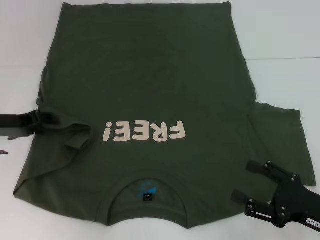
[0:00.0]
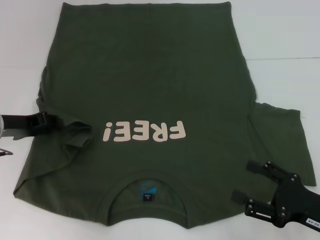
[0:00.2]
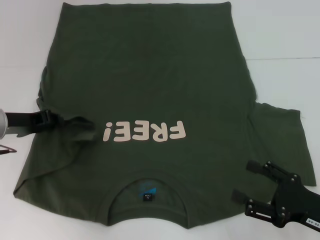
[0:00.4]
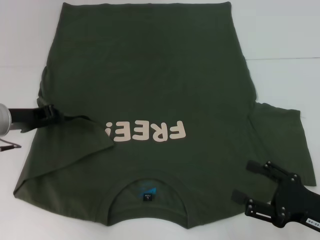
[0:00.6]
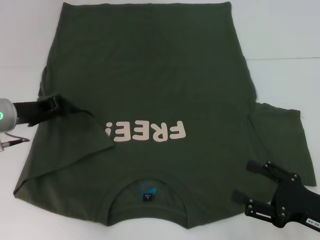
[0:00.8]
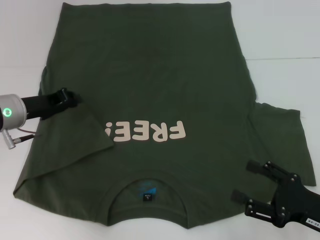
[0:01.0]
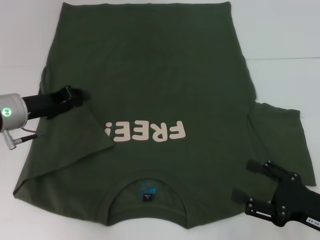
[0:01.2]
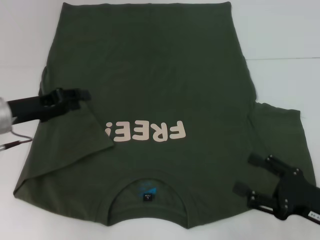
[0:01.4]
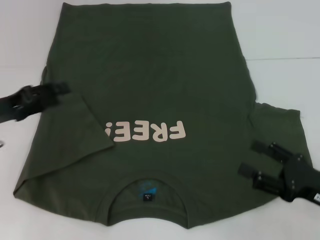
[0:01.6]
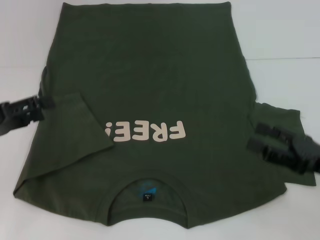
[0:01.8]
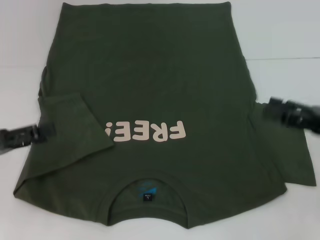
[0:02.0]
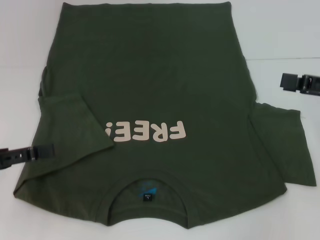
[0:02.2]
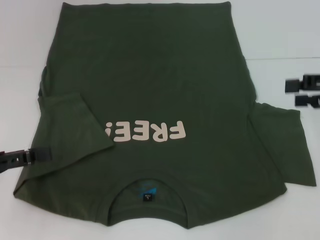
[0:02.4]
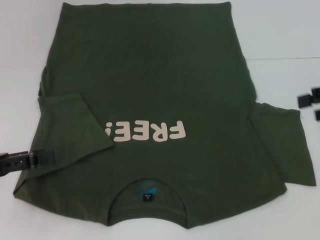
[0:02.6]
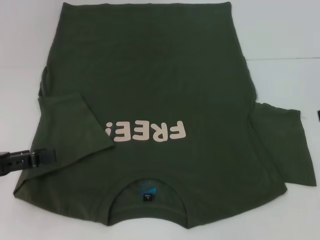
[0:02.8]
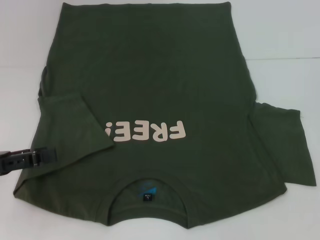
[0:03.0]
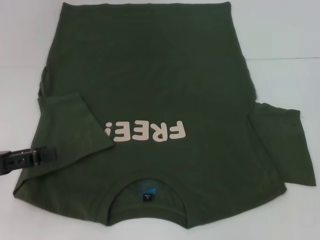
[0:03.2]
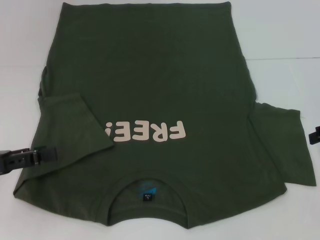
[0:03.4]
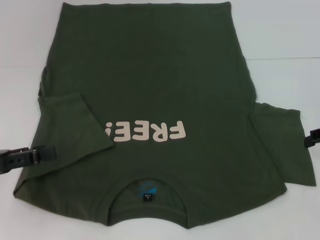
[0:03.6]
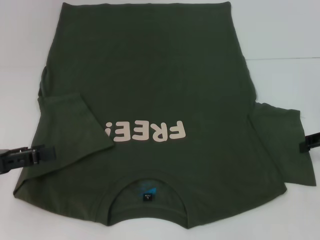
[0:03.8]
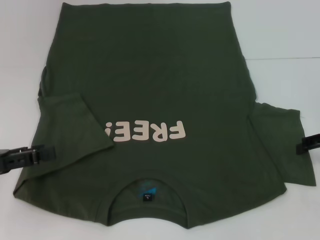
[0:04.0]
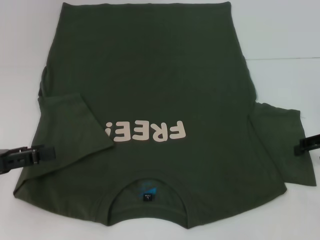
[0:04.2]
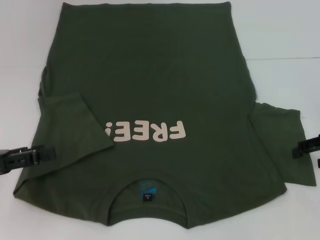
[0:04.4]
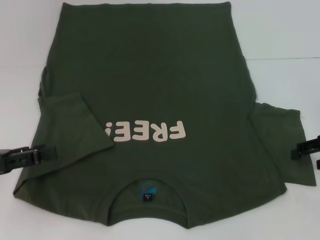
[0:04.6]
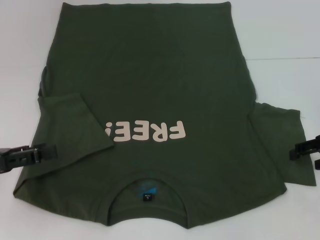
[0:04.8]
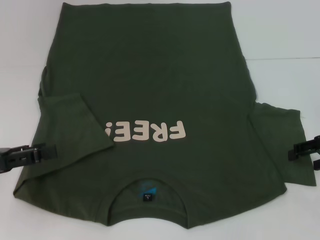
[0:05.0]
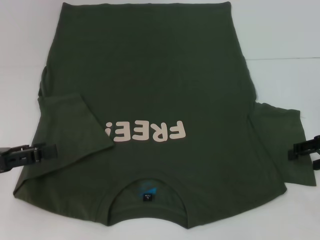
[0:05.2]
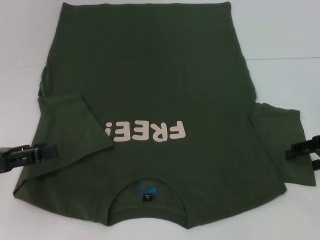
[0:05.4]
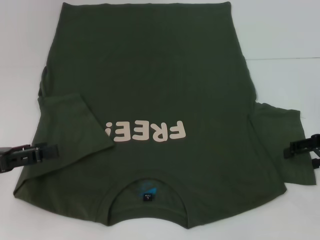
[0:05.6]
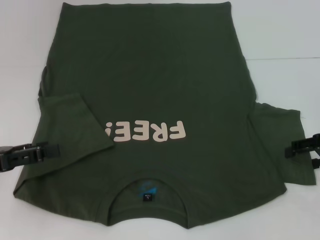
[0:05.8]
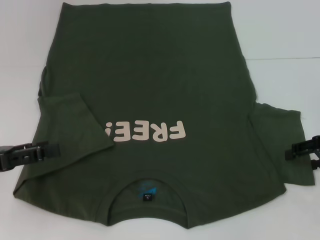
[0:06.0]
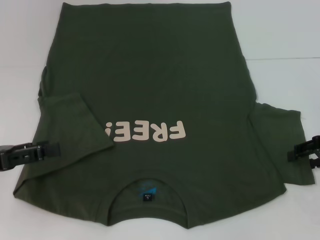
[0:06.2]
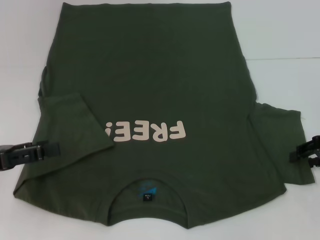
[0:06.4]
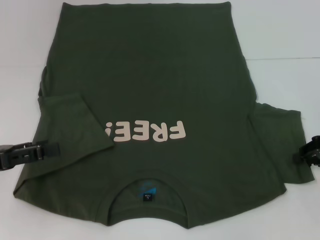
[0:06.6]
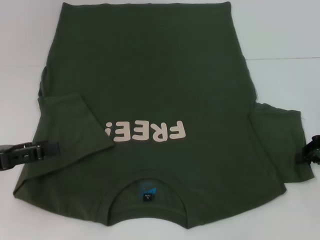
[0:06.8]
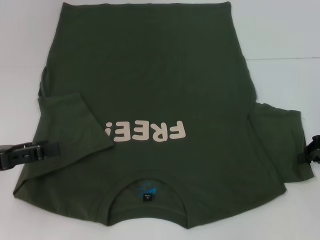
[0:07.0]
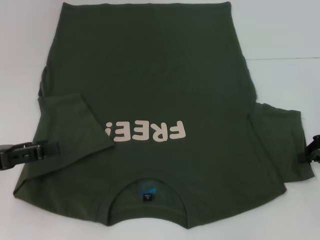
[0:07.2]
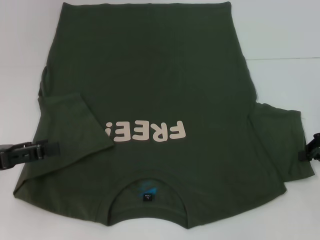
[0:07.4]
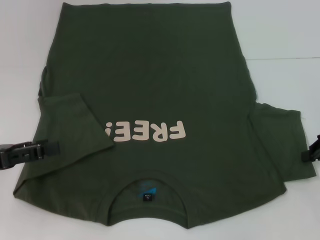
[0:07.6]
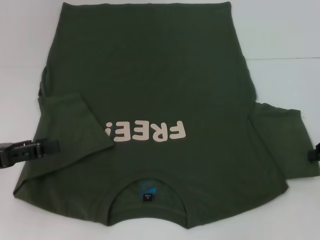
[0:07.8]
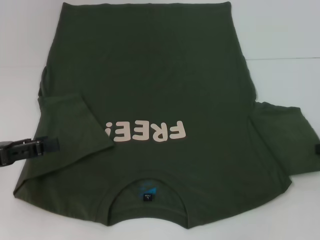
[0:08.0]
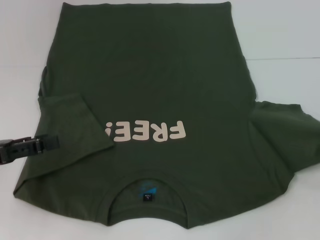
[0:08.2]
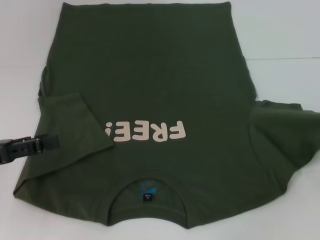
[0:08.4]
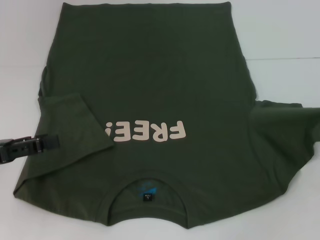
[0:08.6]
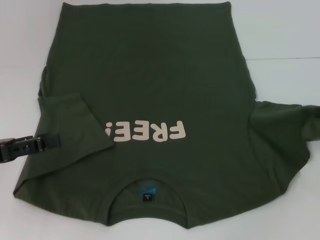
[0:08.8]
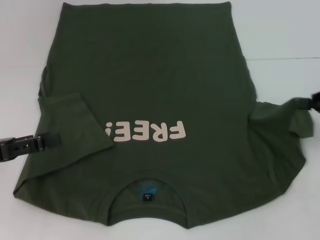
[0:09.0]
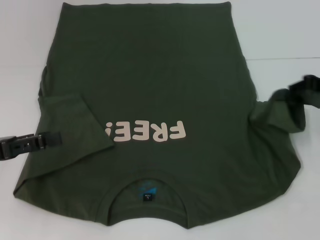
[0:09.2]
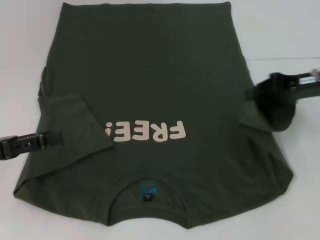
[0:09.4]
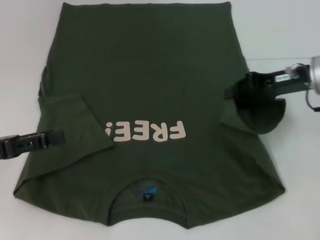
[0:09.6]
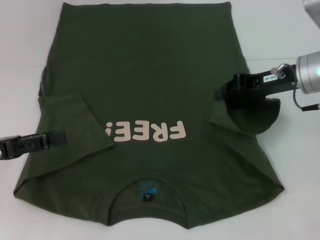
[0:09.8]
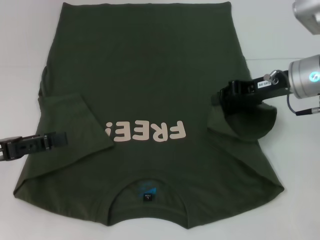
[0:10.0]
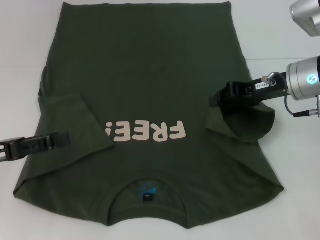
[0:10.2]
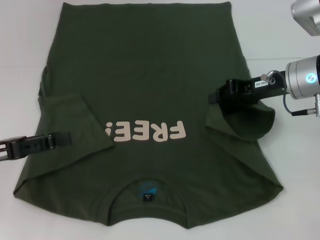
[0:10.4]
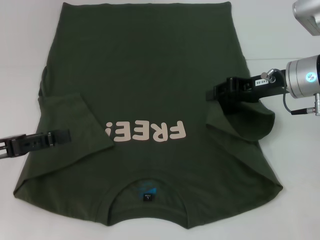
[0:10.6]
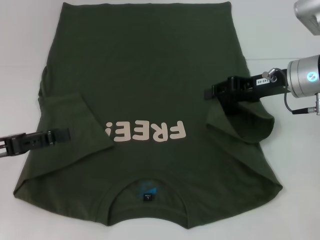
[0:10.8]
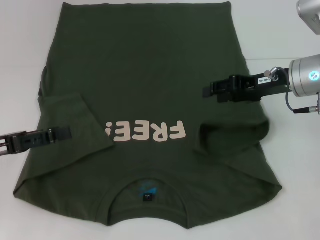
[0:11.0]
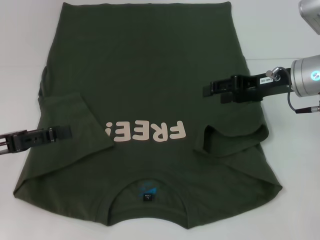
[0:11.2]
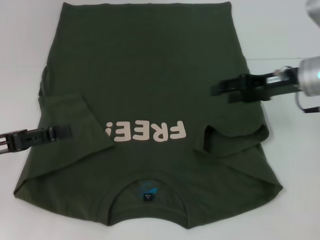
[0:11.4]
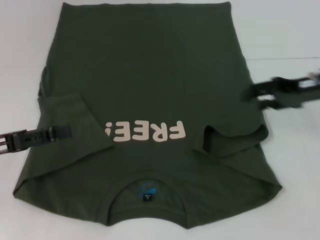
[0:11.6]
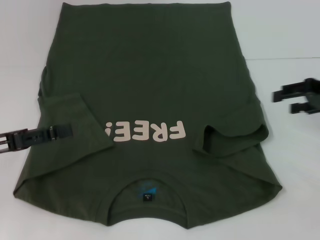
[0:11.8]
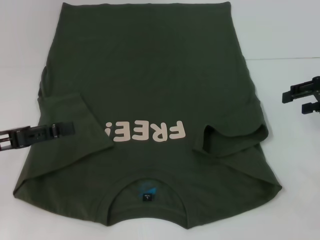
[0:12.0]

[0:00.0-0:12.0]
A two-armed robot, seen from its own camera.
0:00.0 to 0:01.6: The left gripper moves some 5 cm.
0:01.6 to 0:03.0: The right gripper goes approximately 25 cm upward, forward and to the right. Meanwhile the left gripper goes roughly 10 cm backward, and opens its fingers.
0:03.0 to 0:04.4: The right gripper moves downward, about 10 cm.
0:04.4 to 0:06.0: There are only small adjustments of the grippers.
0:06.0 to 0:07.6: The right gripper closes its fingers.
0:09.0 to 0:10.4: The right gripper heads to the left, covering approximately 15 cm.
0:10.4 to 0:12.0: The right gripper is displaced to the right by roughly 10 cm, and opens its fingers.

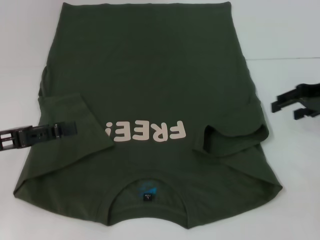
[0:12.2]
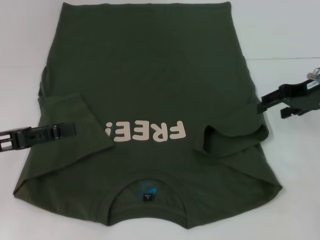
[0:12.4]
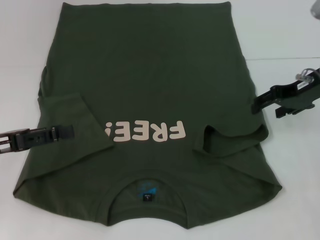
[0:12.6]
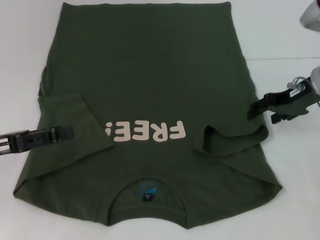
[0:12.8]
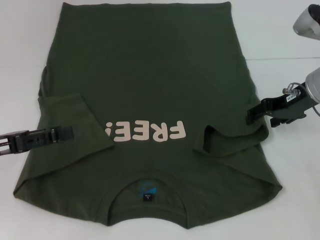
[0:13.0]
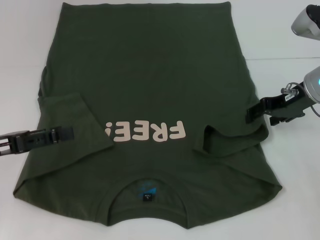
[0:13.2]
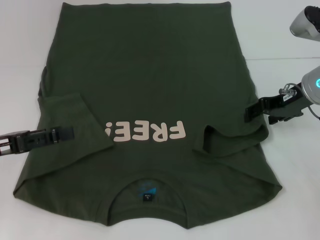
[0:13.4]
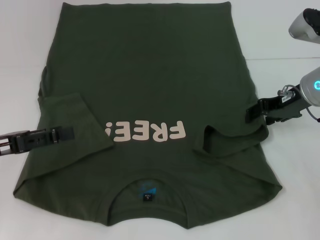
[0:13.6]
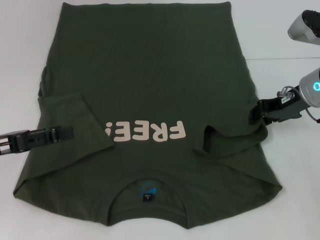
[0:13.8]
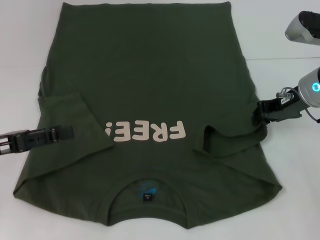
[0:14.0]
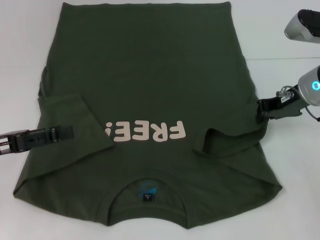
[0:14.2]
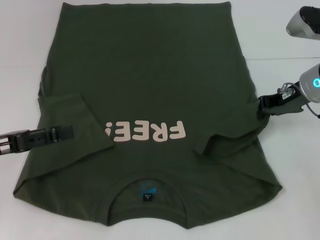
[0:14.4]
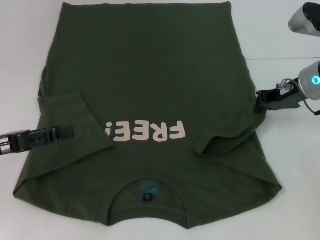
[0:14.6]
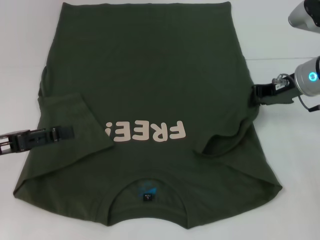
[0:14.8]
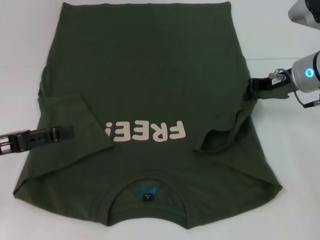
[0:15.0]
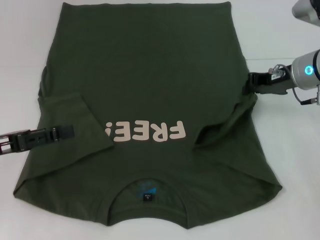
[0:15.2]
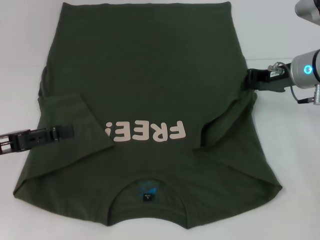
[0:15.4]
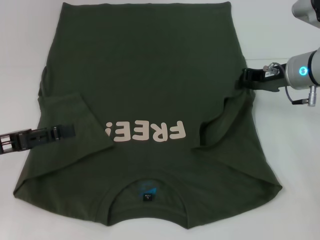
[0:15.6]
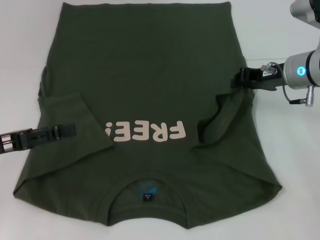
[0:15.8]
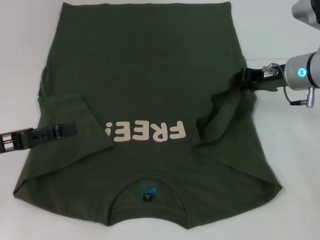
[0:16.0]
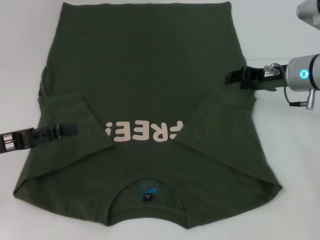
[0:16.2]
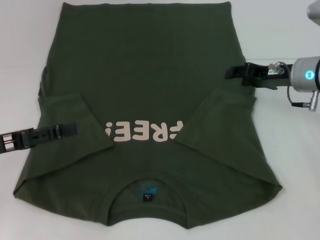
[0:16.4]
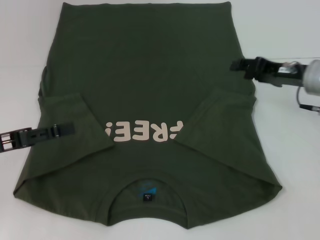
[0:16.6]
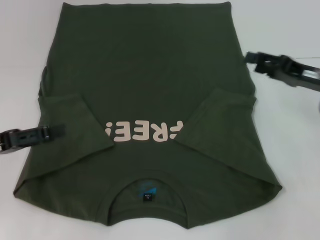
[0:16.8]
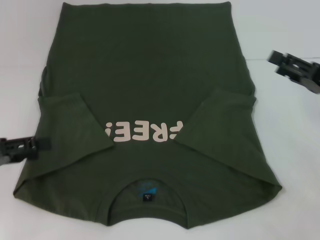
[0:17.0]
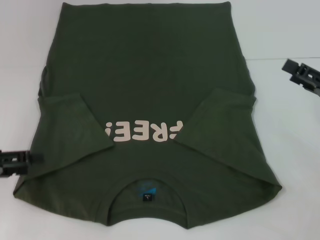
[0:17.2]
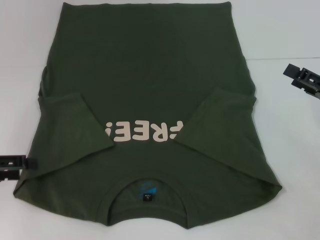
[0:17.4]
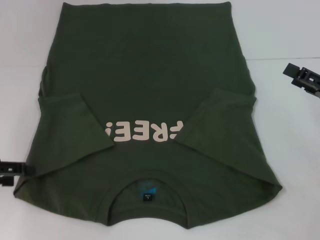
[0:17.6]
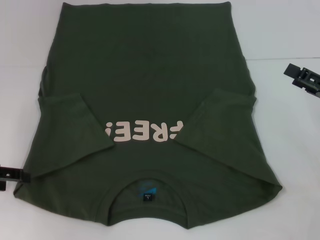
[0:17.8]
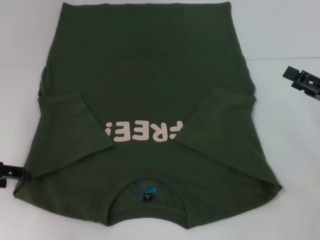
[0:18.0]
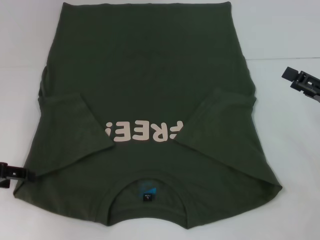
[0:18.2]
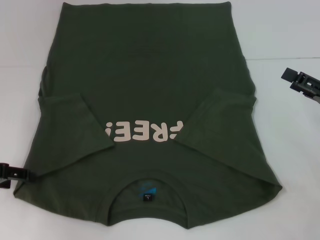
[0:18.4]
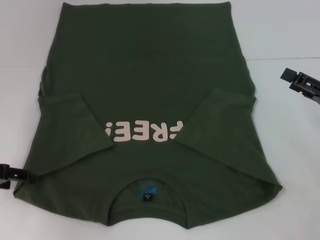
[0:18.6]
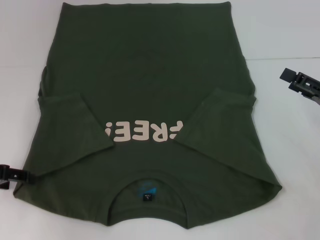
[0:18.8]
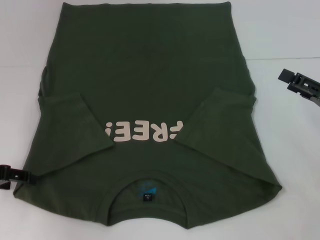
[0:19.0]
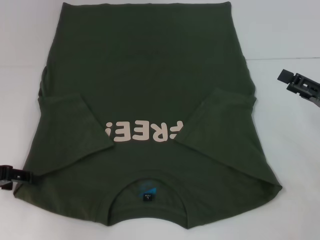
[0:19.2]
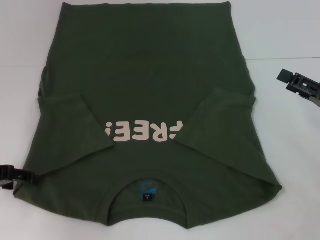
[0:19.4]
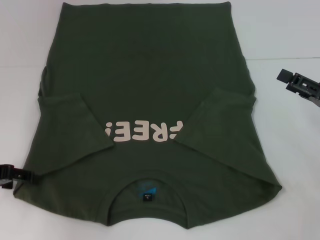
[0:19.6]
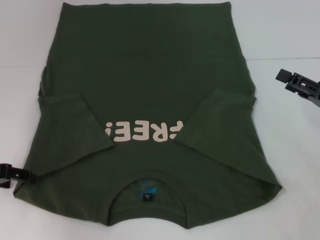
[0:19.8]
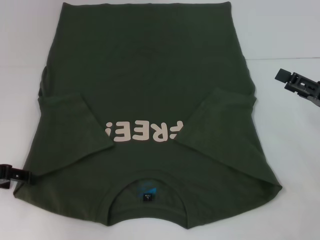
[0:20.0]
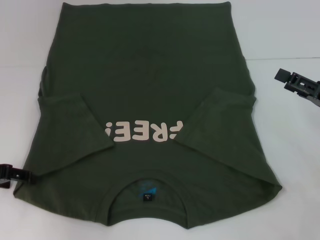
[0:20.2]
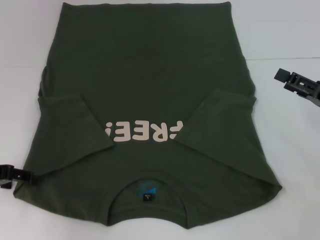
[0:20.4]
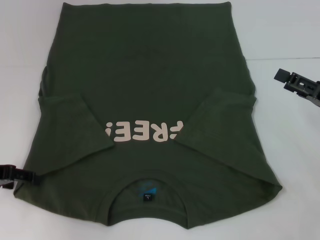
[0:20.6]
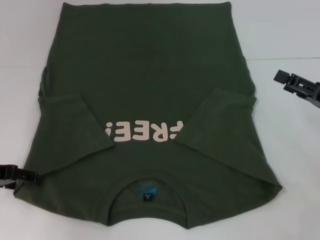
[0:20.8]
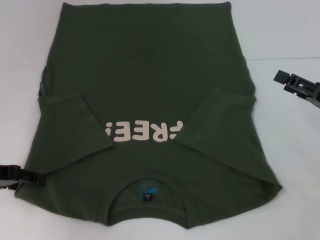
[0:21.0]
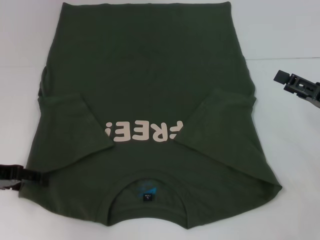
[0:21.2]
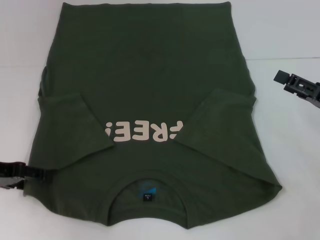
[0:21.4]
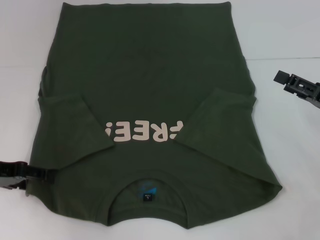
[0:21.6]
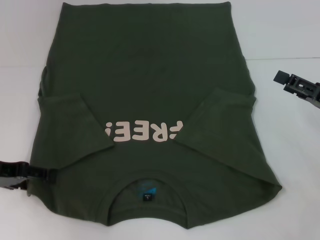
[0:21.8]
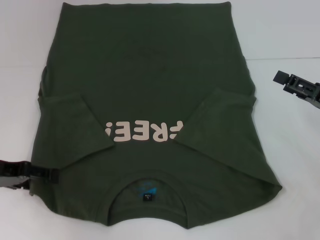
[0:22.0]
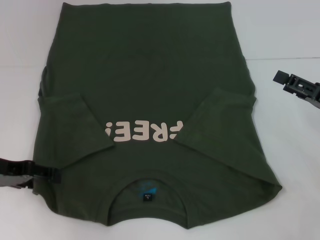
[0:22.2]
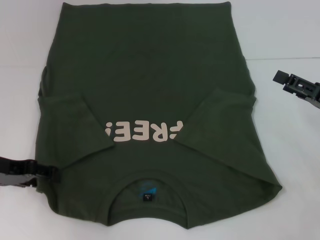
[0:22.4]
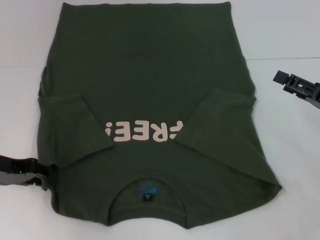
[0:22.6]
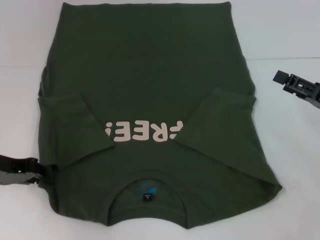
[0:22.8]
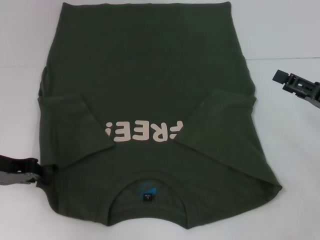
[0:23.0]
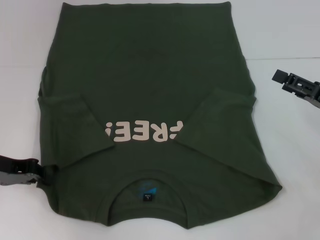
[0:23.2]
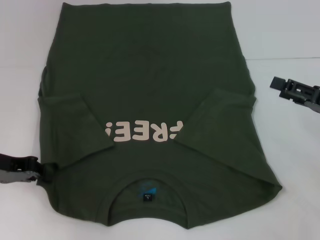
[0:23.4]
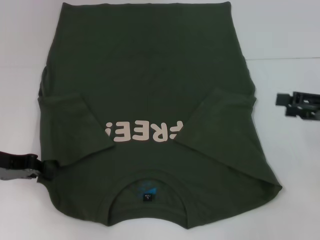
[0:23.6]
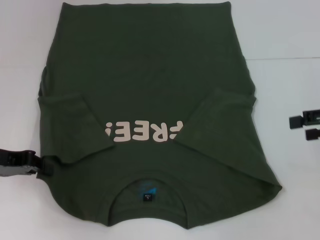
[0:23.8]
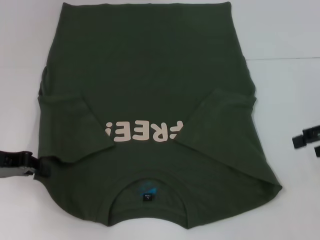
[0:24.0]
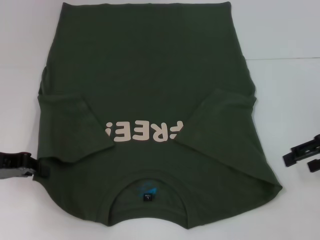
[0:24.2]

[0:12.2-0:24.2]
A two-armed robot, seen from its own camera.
Step, 0:12.2 to 0:16.0: Fold the bottom right sleeve with your right hand.
Step, 0:16.2 to 0:23.4: Grab the bottom left corner with your left hand.
0:12.2 to 0:13.8: The right gripper travels to the left by some 5 cm.
0:13.8 to 0:15.2: The right gripper closes.
0:15.2 to 0:16.6: The right gripper opens up.
0:16.6 to 0:18.2: The right gripper heads backward and to the right, covering approximately 10 cm, and opens up.
0:18.2 to 0:19.8: Both grippers stay put.
0:19.8 to 0:21.2: Both grippers stay about where they are.
0:21.2 to 0:22.6: The grippers stay close to where they were, moving slightly.
0:22.6 to 0:24.2: The left gripper closes. Meanwhile the right gripper moves upward, roughly 5 cm.
